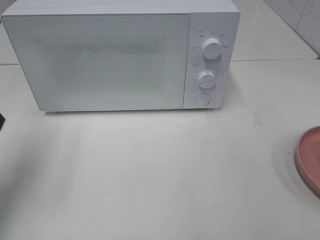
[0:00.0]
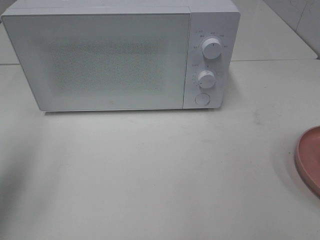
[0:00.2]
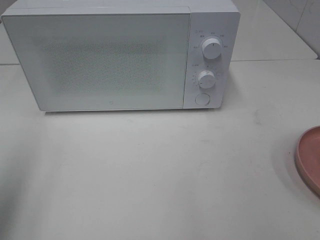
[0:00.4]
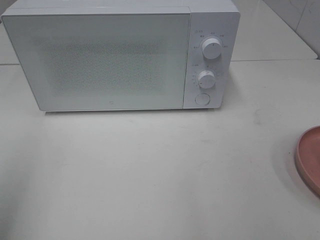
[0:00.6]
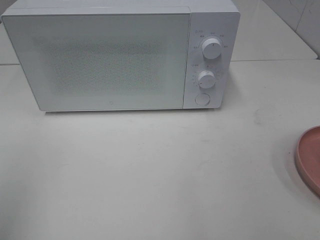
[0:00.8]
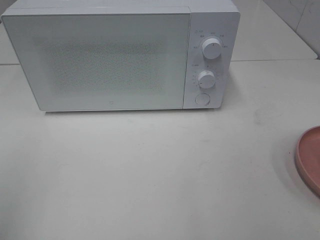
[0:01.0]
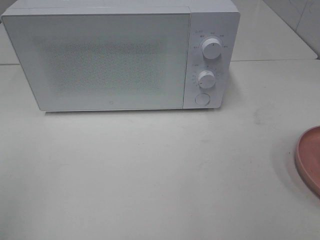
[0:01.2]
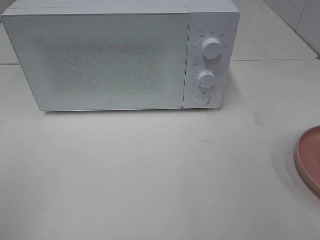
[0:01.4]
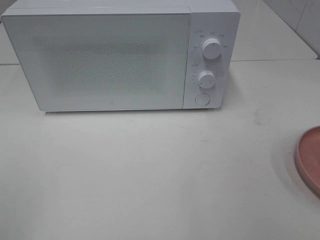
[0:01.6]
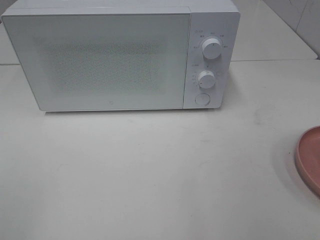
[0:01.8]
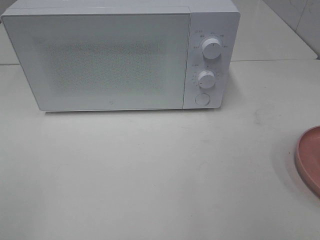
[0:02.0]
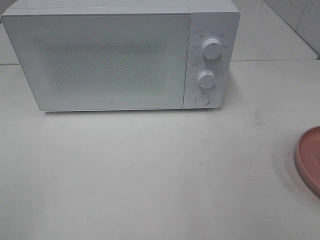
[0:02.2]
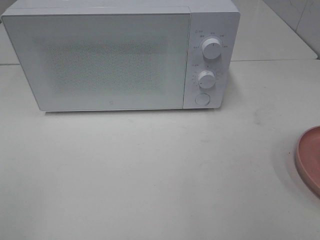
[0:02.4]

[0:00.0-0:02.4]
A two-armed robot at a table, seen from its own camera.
Task of the whole recording: Heat the burger.
0:00.0 to 0:01.2: The left gripper moves backward, roughly 20 cm.
